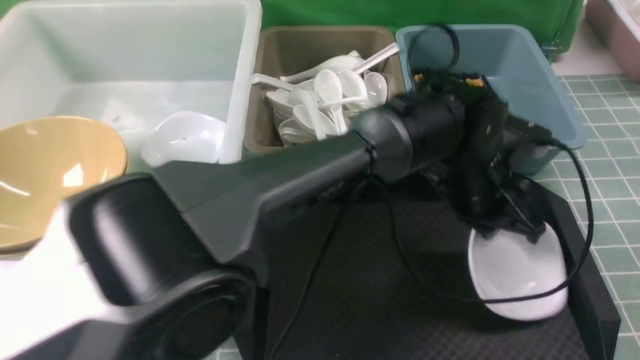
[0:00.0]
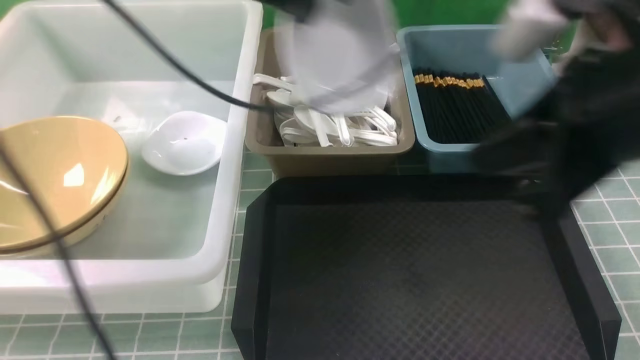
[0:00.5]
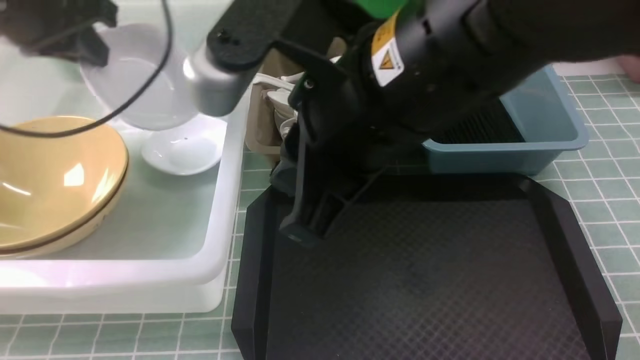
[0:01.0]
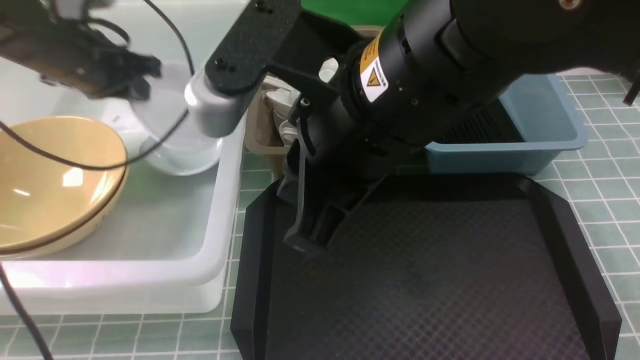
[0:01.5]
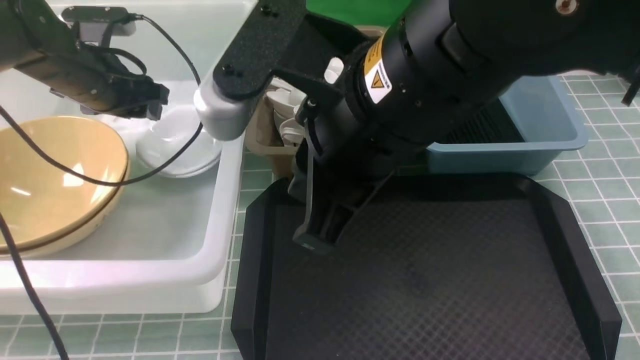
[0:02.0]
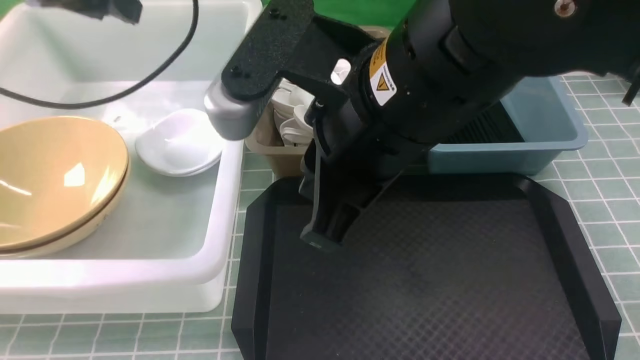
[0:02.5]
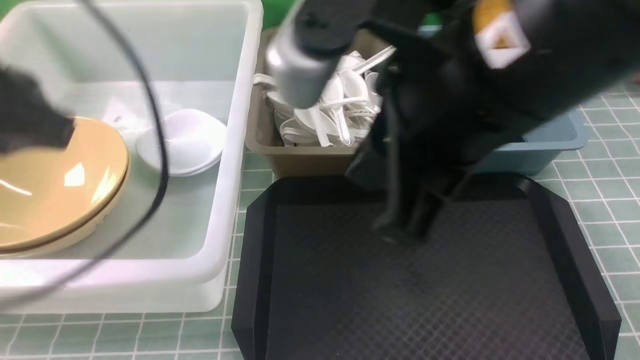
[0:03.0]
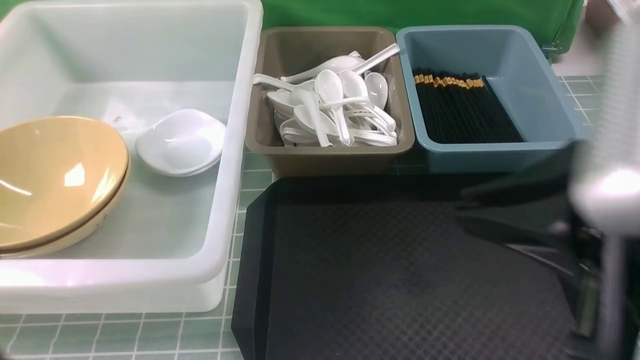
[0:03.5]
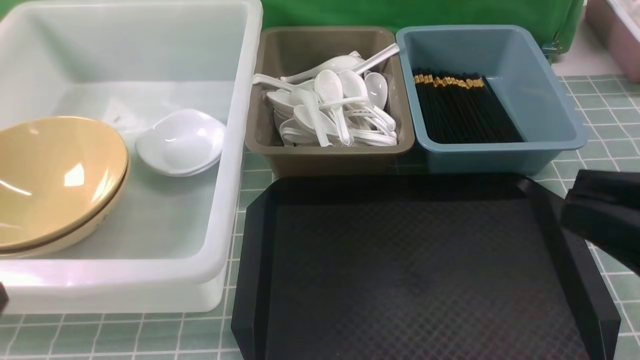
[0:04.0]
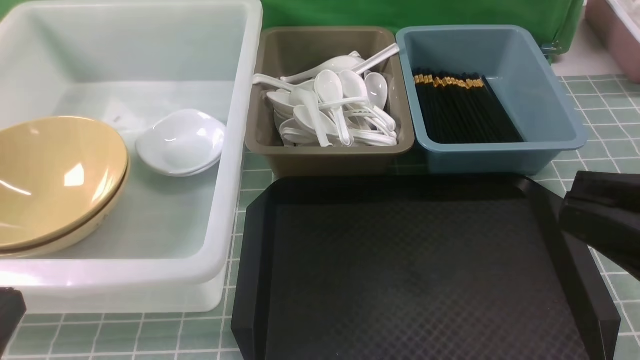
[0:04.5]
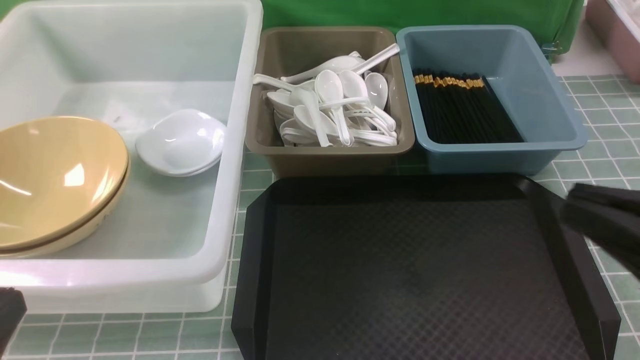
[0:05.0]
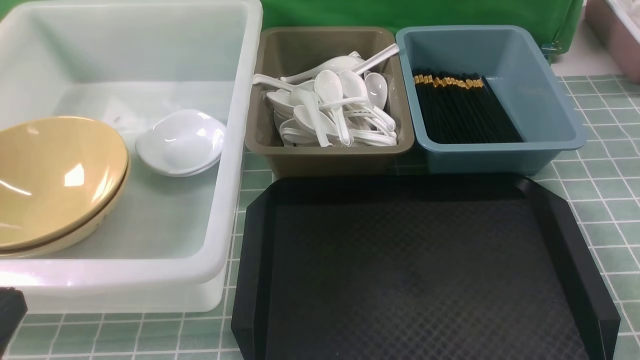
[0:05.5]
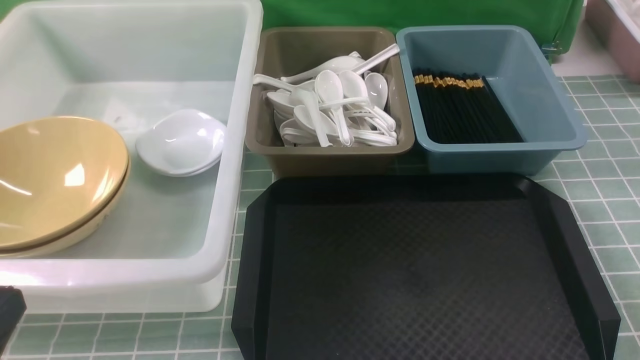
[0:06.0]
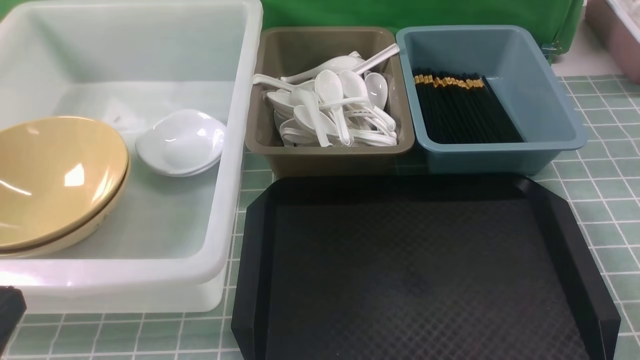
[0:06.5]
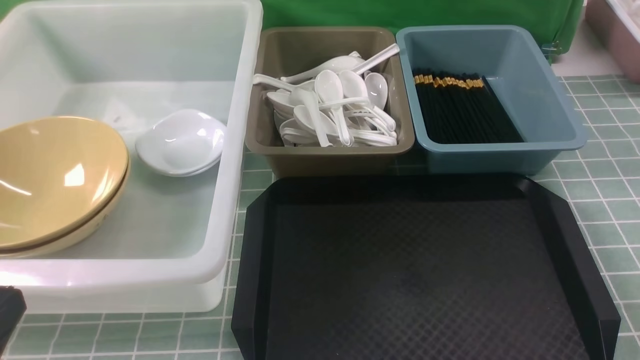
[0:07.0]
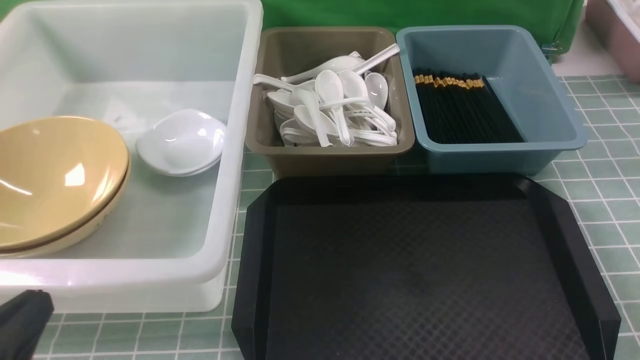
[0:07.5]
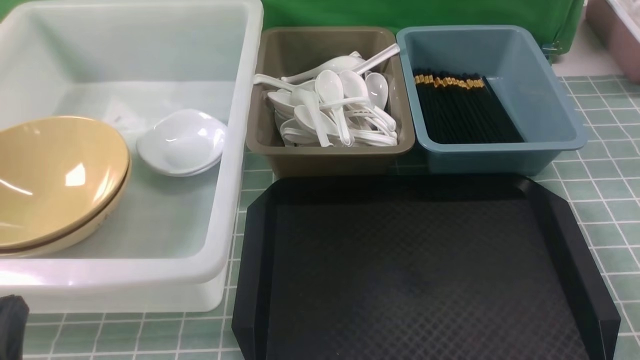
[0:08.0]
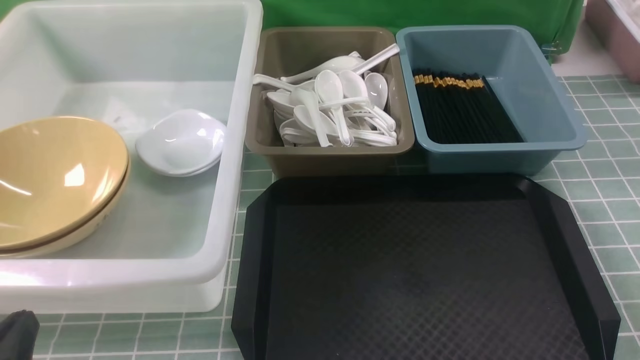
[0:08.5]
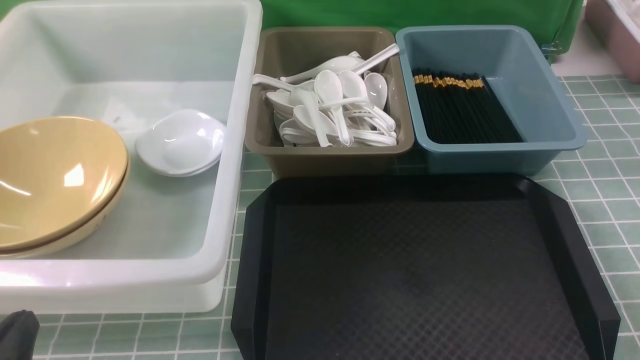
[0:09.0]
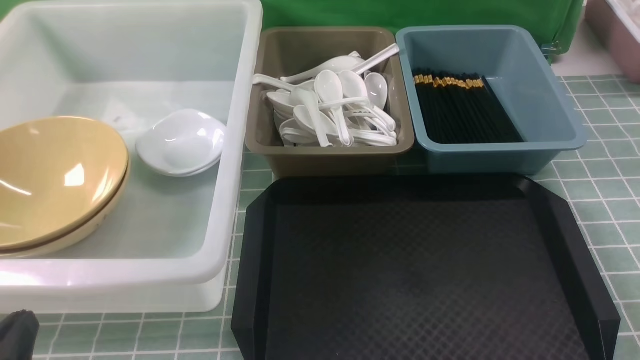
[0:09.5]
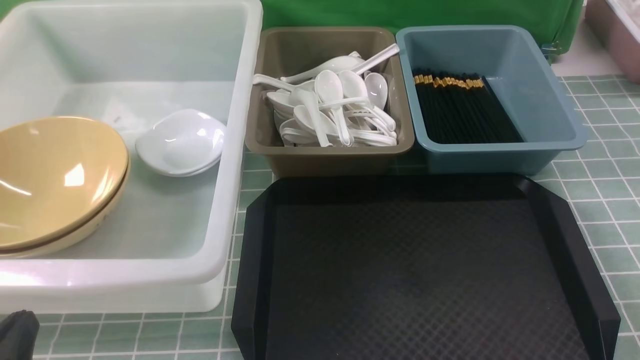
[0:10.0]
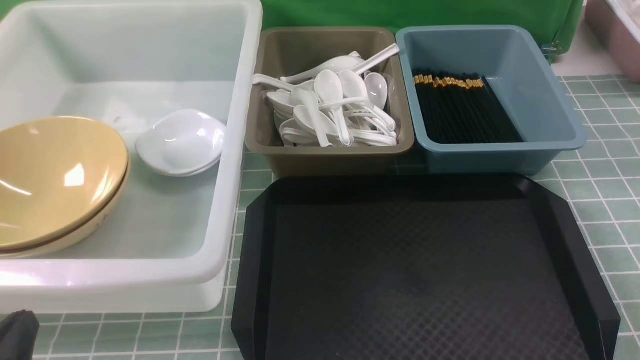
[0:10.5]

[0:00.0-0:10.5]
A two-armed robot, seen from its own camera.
Task of the whole recording: on blue table put chopsticks spoon bowls plates into blue grey white boxes.
Step, 0:00.5 to 0:02.0: use the left arm to put the plate into the large storage box on the left.
0:00.0 to 0:02.0: The left gripper heads to the left, covering about 40 cm, and opens its fingers, while the right gripper heads to the left and forward, covering about 25 cm.
0:02.0 to 0:04.0: The left gripper heads backward, covering about 40 cm, and closes up. The right gripper heads to the right and backward, covering some 25 cm.
0:04.0 to 0:06.5: The right gripper moves downward and to the right, about 20 cm.
0:06.5 to 0:08.5: The left gripper travels downward by some 10 cm.
0:08.5 to 0:10.5: Both grippers stay put.

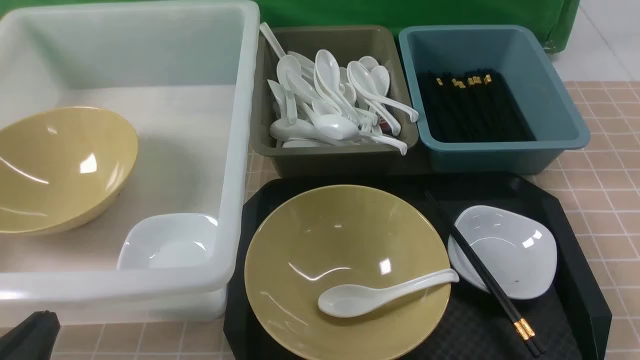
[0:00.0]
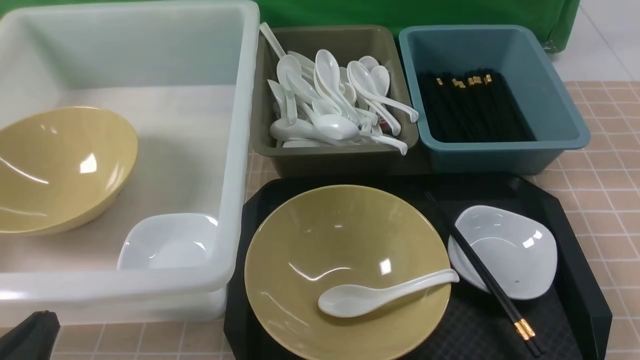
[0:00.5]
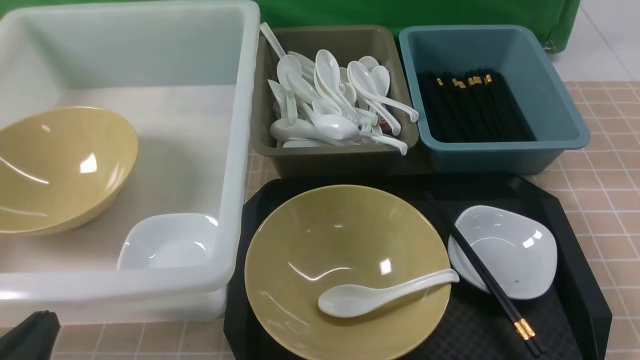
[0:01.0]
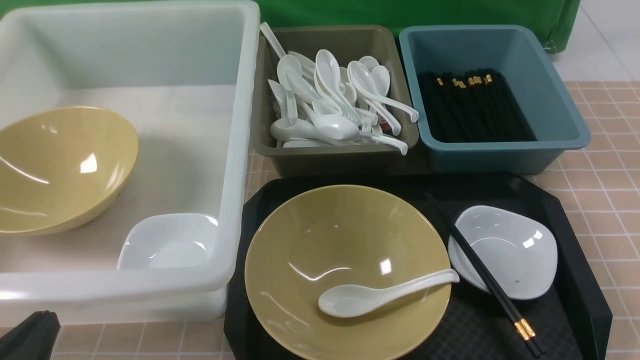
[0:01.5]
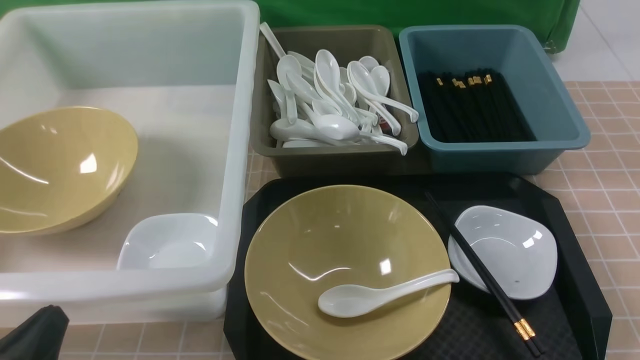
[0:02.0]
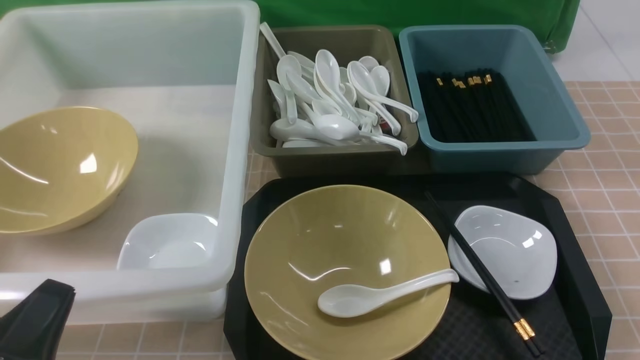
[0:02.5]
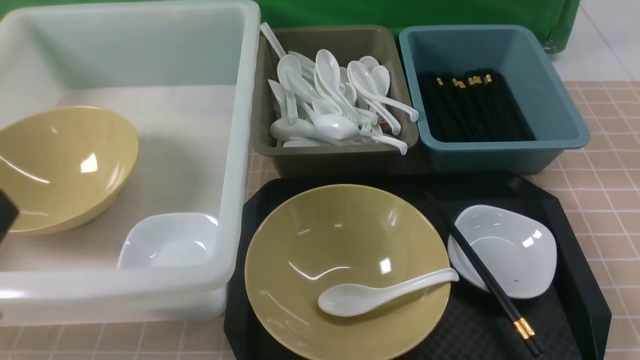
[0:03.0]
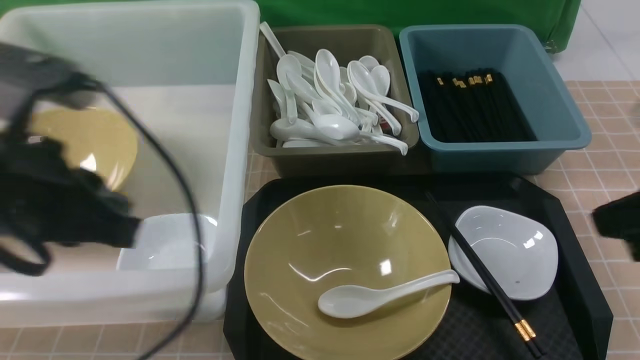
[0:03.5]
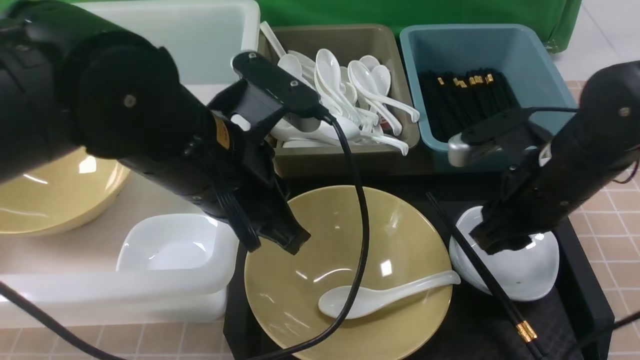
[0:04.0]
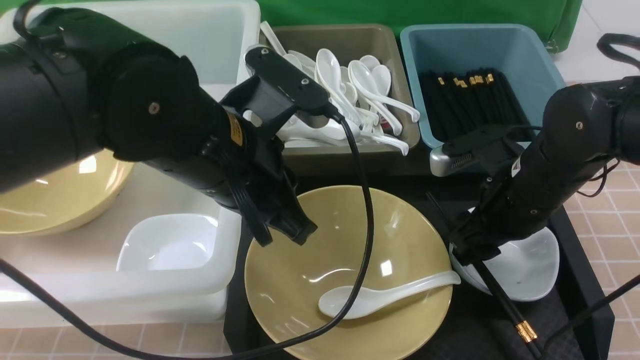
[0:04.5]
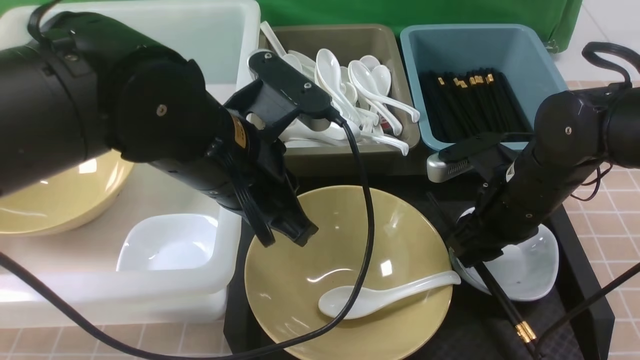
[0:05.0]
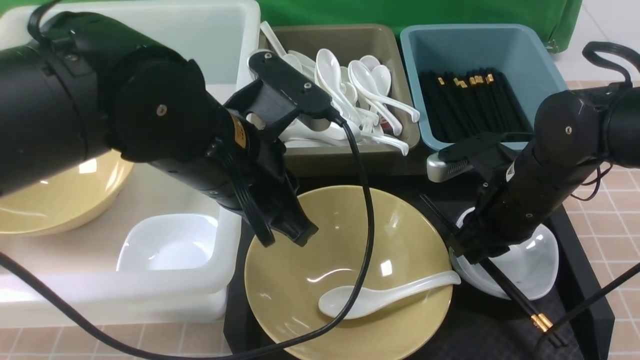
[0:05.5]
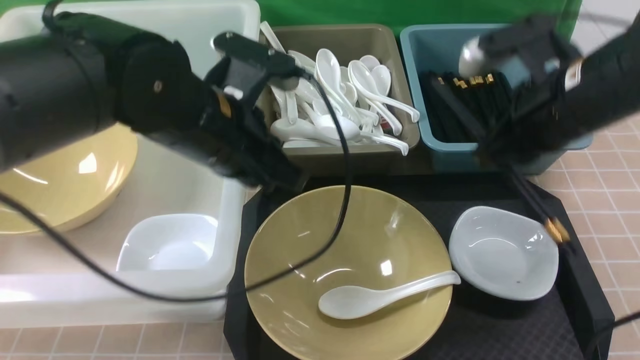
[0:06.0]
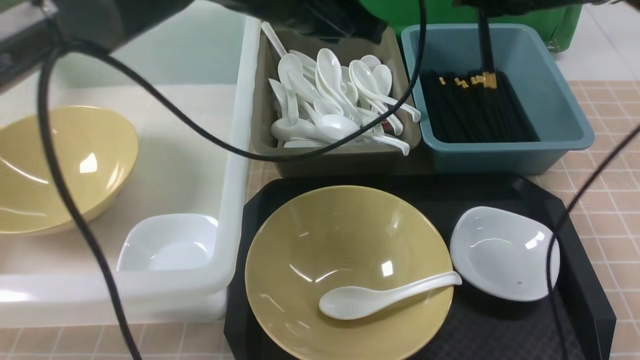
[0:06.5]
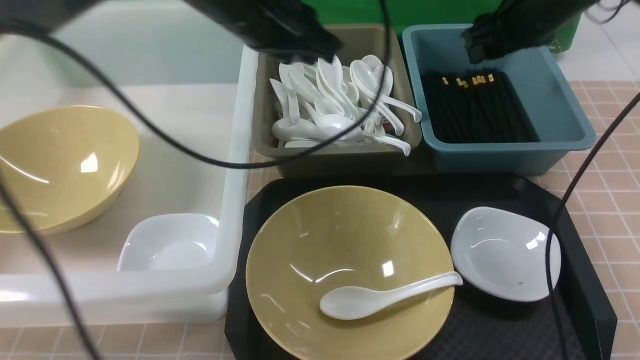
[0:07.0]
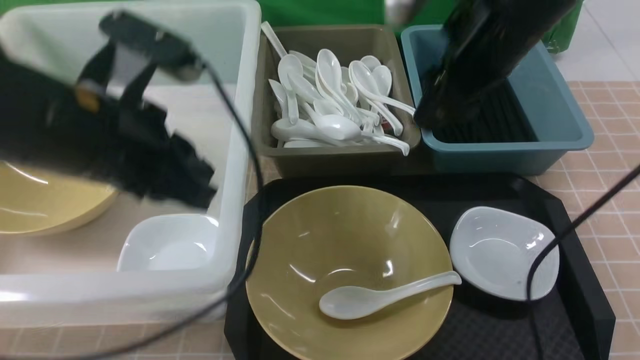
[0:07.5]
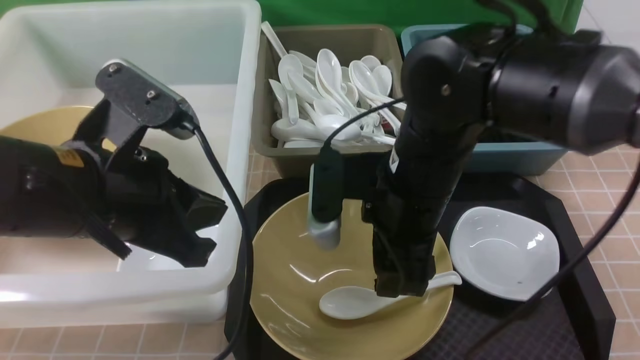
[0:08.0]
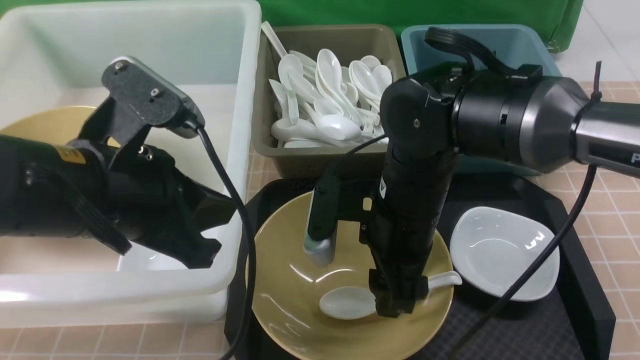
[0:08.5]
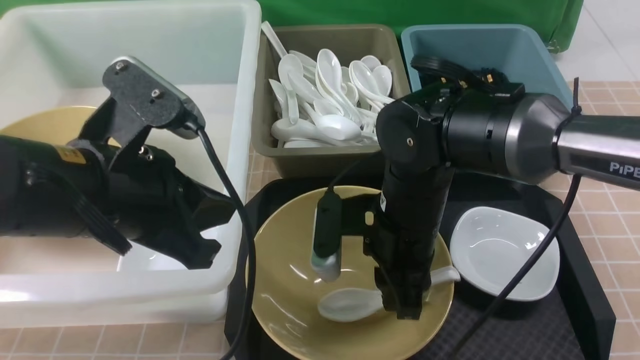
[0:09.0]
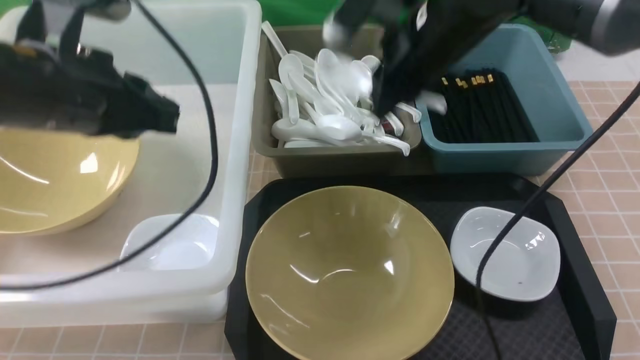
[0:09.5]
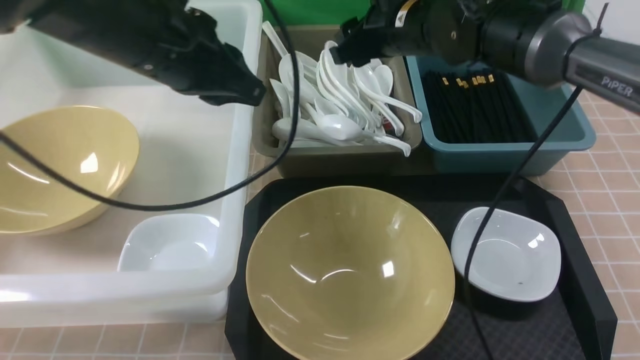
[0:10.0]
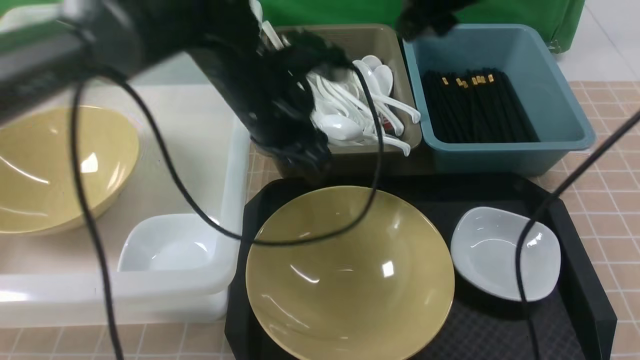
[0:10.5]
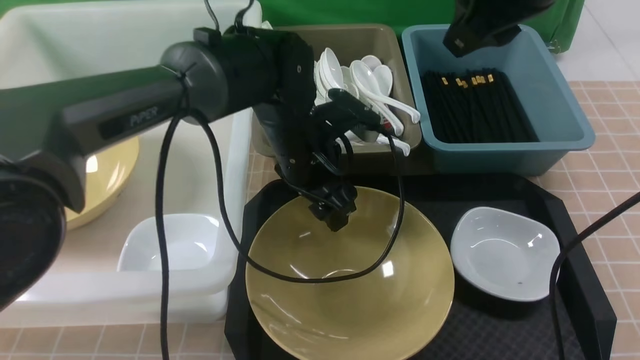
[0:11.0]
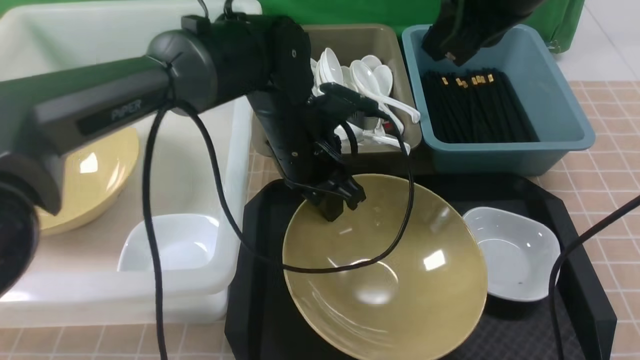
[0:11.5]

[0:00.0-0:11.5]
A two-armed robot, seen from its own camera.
Task of the whole recording: on brown table put chopsticks spoon bowls plates into blue grey white boxes.
Step, 0:00.0 to 0:05.5: use the right arm to grab the chopsticks.
Step, 0:06.0 to 0:07.0: use the right arm to put the chopsticks into the small storage box on the right.
Step, 0:07.5 to 0:09.0: use the right arm to grab the soup spoon in the middle.
Step, 0:09.5 to 0:10.0: use the right arm to put the soup spoon into the small storage box in the middle.
Step, 0:10.5 to 0:11.0: use the left arm to grab the yellow noodle bowl on the left.
0:02.0 to 0:04.0: The left gripper shifts approximately 25 cm forward, to the right and upward. The right gripper moves forward and to the left, about 25 cm, and closes, then reopens.
0:04.0 to 0:06.0: The right gripper is displaced upward by some 10 cm, and closes, while the left gripper moves forward, about 5 cm.
0:06.0 to 0:07.5: The right gripper heads to the left, covering roughly 5 cm, goes forward and returns, some 15 cm each way, and opens, while the left gripper moves to the left and backward, some 10 cm.
0:07.5 to 0:09.5: The right gripper travels forward by approximately 5 cm, goes downward and returns, approximately 15 cm each way, and closes.
0:09.5 to 0:11.5: The right gripper shifts some 15 cm upward and backward, and opens and closes again. The left gripper shifts roughly 20 cm to the right, downward and forward, and opens and closes again.
